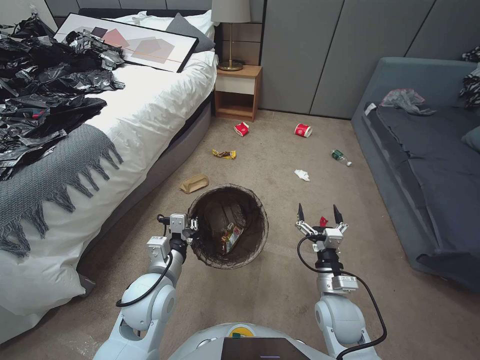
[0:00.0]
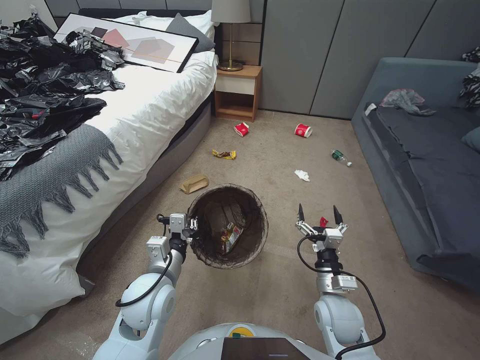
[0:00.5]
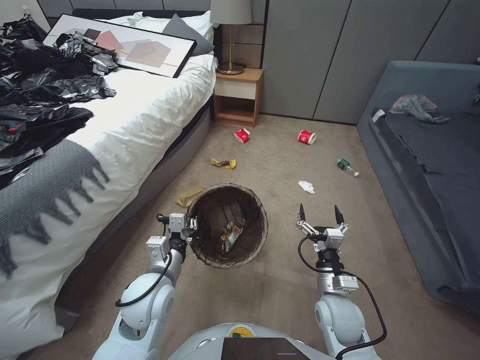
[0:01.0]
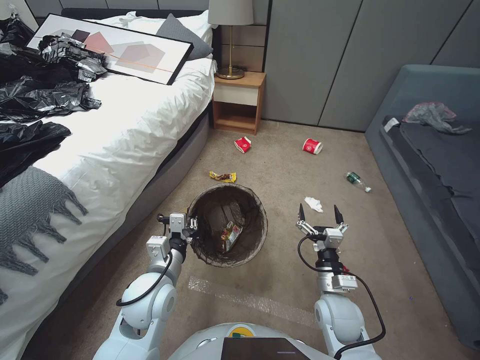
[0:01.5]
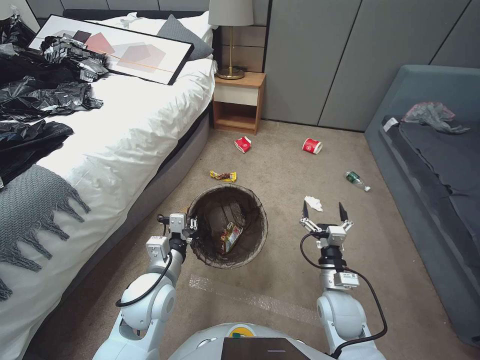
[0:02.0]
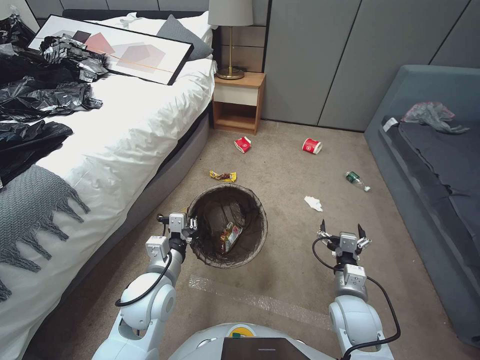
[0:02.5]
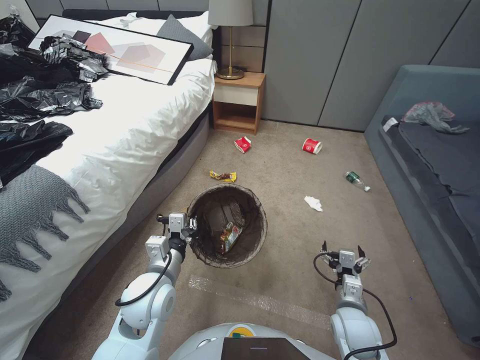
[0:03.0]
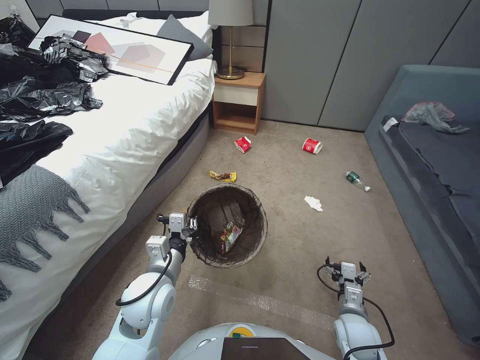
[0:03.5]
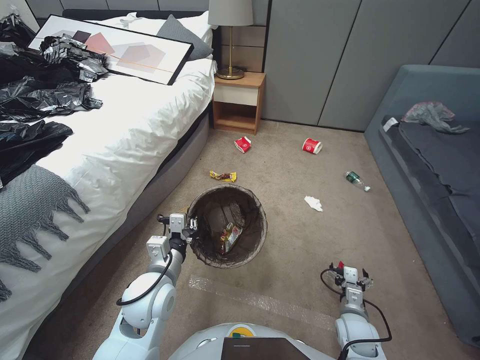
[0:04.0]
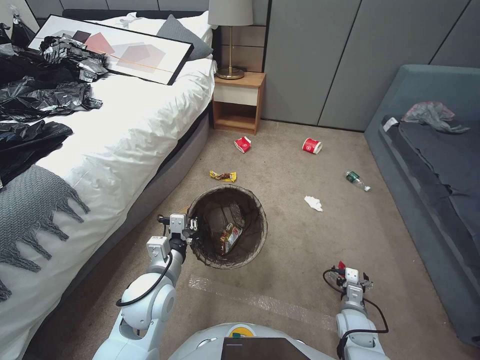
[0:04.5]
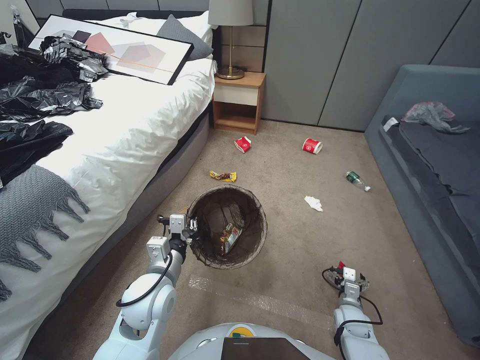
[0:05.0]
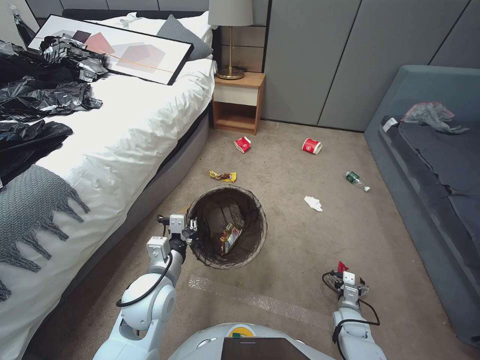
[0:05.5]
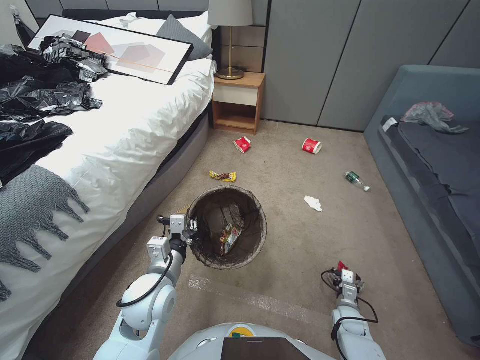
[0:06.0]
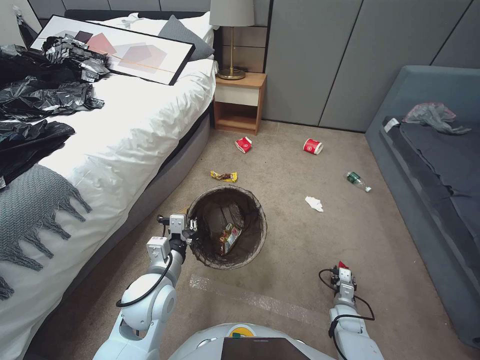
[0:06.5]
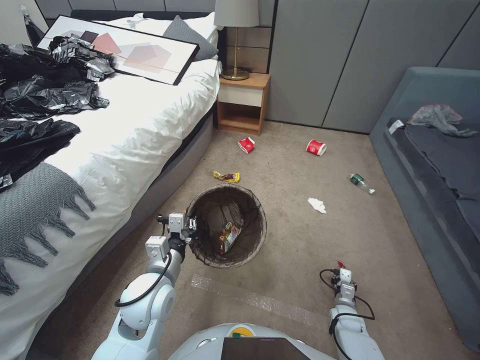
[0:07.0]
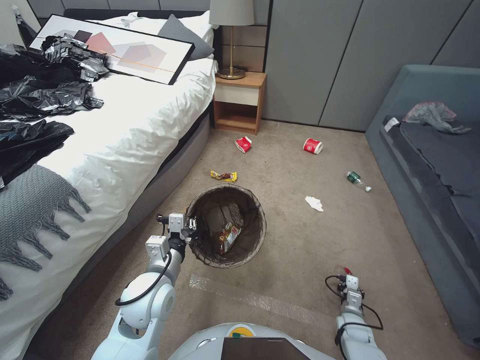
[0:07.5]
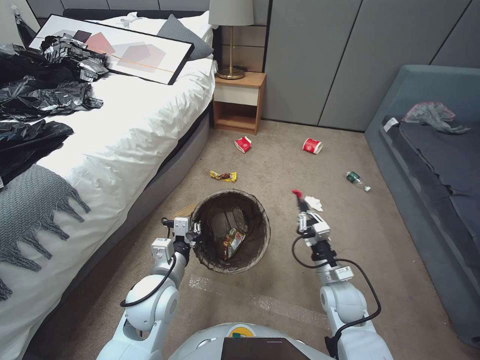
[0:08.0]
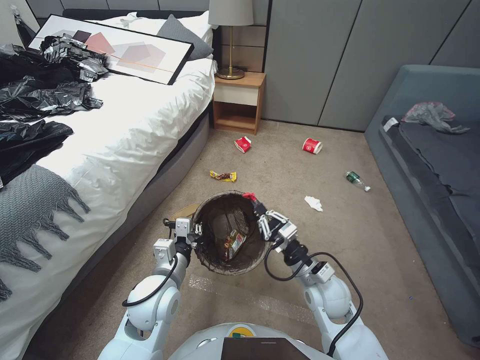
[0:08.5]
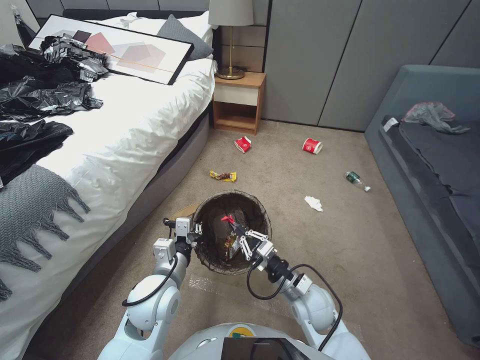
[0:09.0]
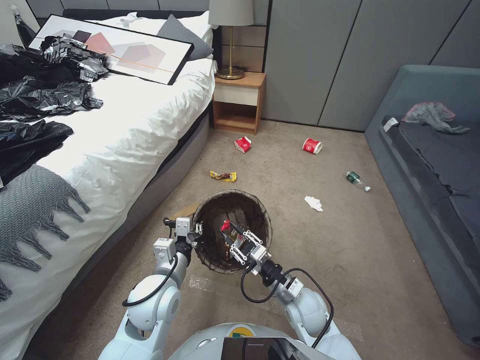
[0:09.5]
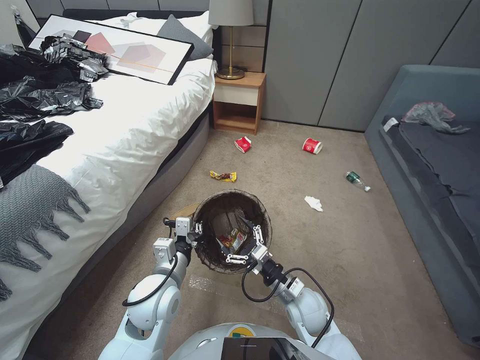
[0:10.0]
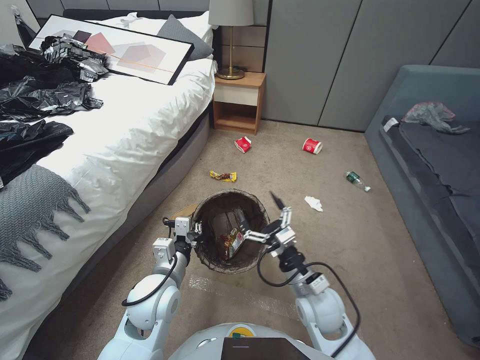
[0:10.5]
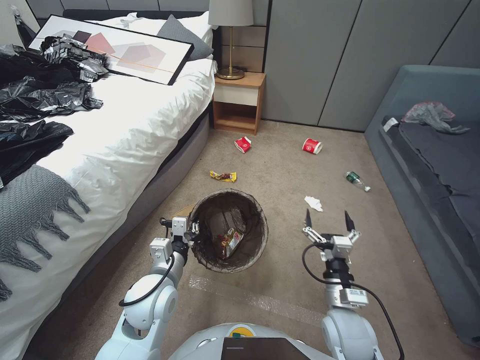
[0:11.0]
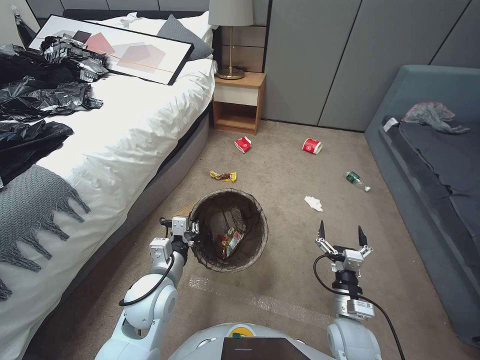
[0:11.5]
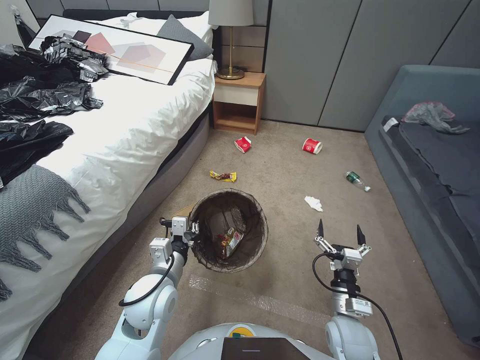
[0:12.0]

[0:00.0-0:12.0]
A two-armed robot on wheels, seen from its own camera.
Task of the whole recording: Pick up the trash bin, then pick up the garbage from the floor and place it into the trash bin.
0:02.0 to 0:04.0: The right gripper is displaced downward and to the right by about 15 cm.
0:04.0 to 0:06.0: The right gripper heads downward, covering about 10 cm.
0:06.0 to 0:08.0: The right gripper heads upward and to the left, covering roughly 20 cm, and closes.
0:08.0 to 0:10.0: The right gripper travels to the left by about 10 cm, and opens up.
0:10.0 to 0:12.0: The right gripper travels to the right and backward by about 10 cm.

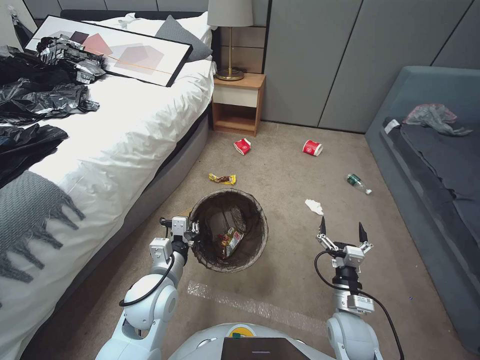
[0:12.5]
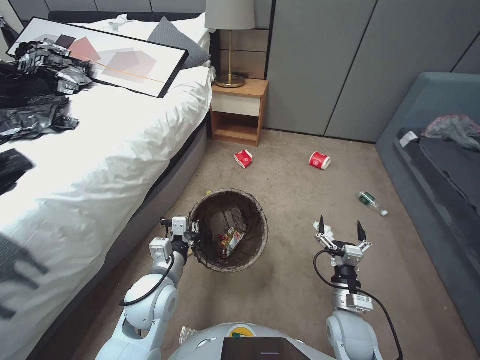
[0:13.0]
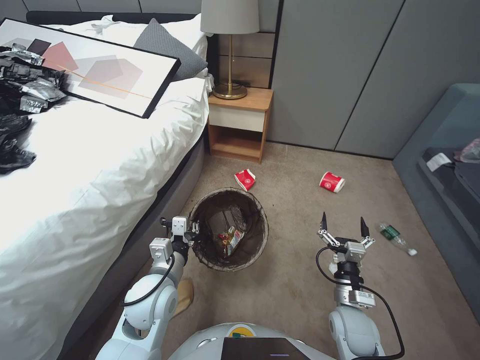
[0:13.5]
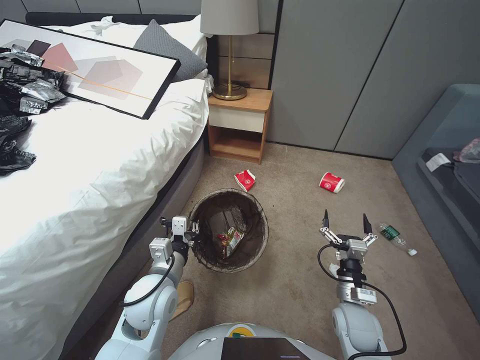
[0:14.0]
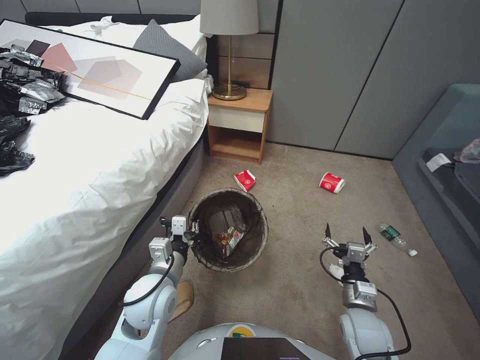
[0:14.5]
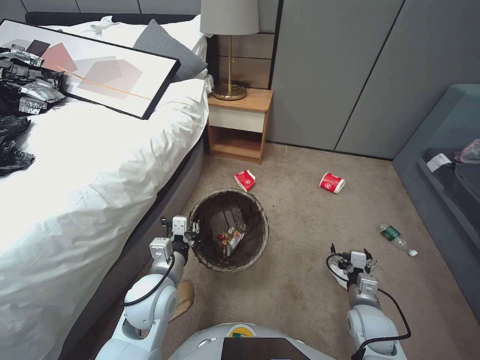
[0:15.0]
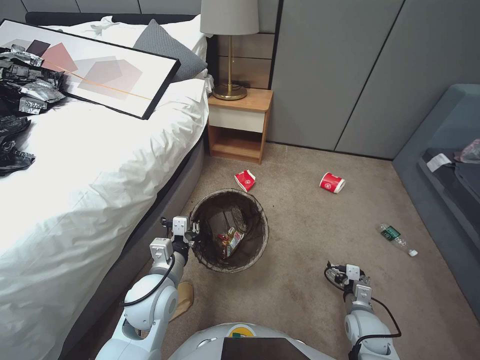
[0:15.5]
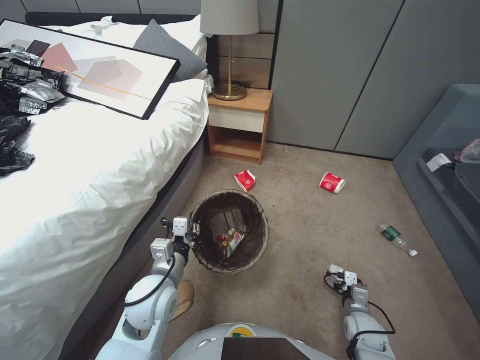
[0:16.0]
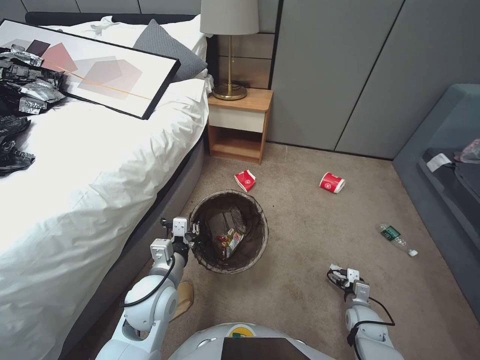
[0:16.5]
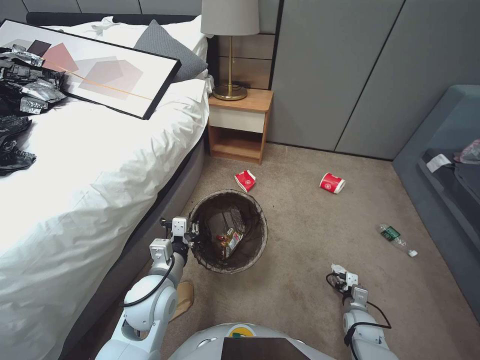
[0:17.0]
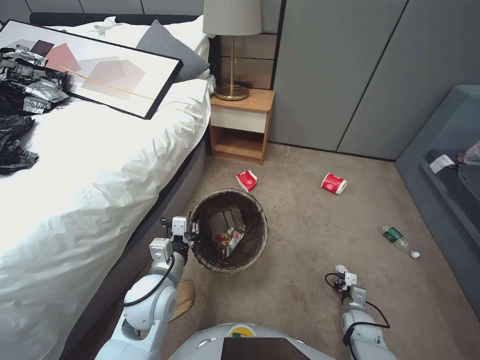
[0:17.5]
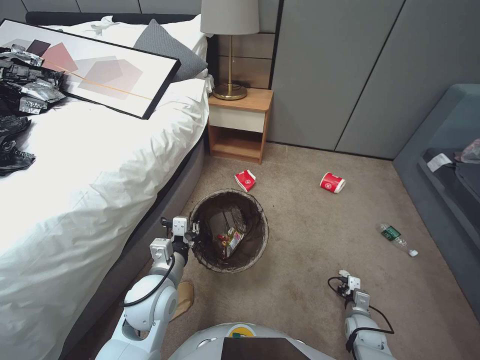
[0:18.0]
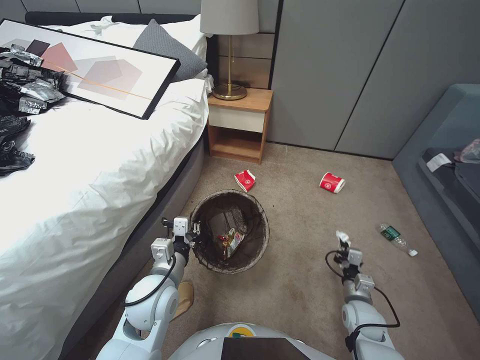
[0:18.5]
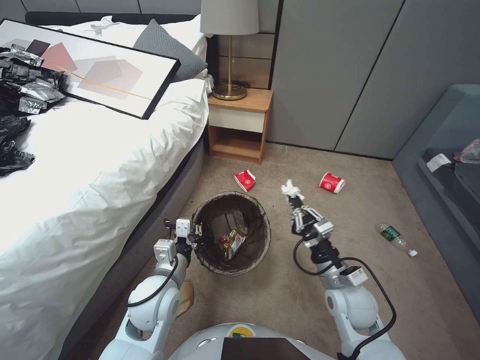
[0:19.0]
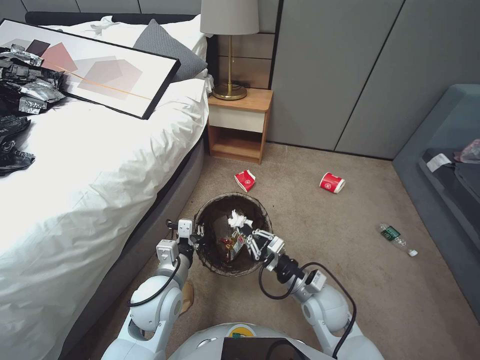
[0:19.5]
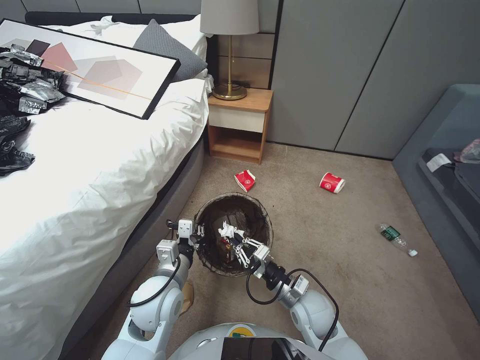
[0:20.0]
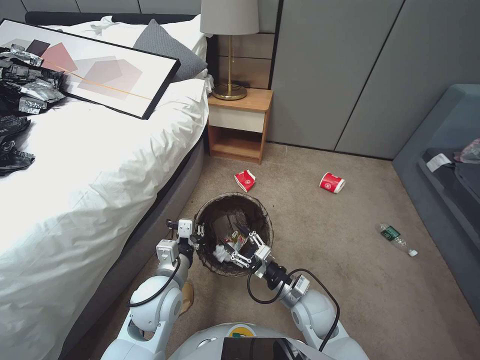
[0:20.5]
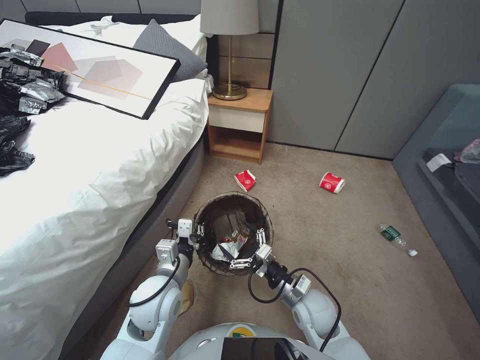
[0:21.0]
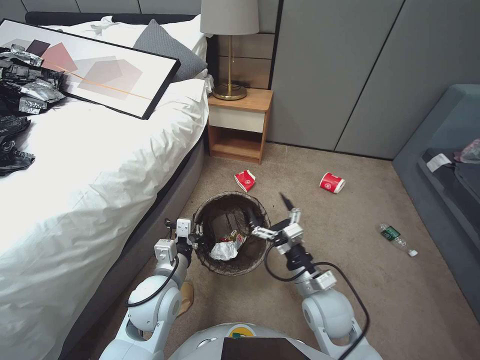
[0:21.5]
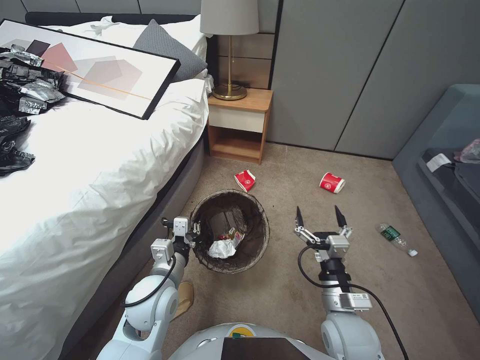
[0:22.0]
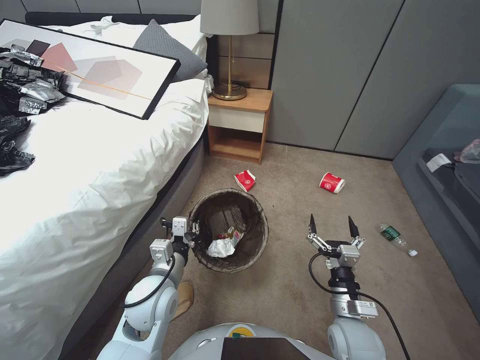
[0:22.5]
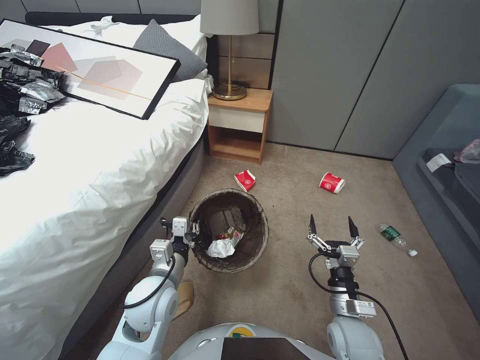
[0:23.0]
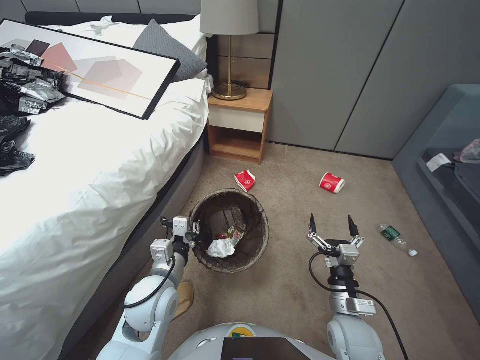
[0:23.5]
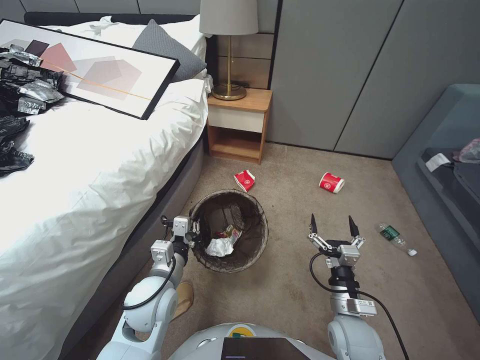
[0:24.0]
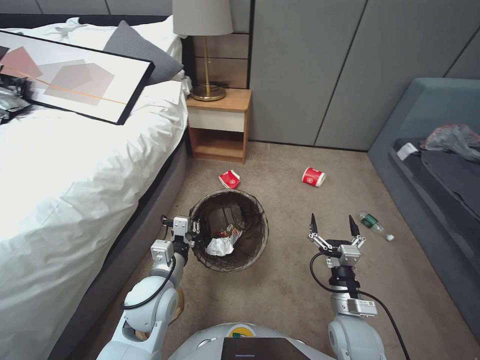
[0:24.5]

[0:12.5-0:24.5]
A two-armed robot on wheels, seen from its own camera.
Task of the whole recording: Pick up the trash bin, then pick up the garbage from the floor and place it into the trash bin.
0:14.5 to 0:16.5: The right gripper goes roughly 15 cm downward and to the right.
0:16.5 to 0:18.5: The right gripper closes up.
0:18.5 to 0:20.5: The right gripper moves to the left and upward, roughly 25 cm, and opens up.
0:20.5 to 0:22.5: The right gripper is displaced to the right and backward by approximately 10 cm, and opens up.

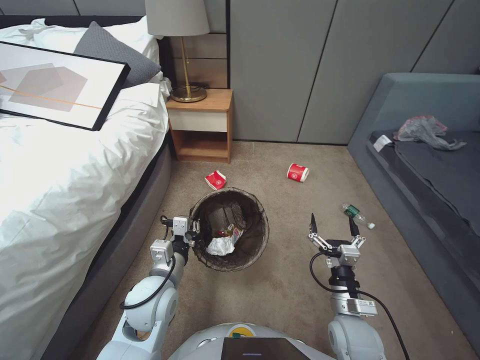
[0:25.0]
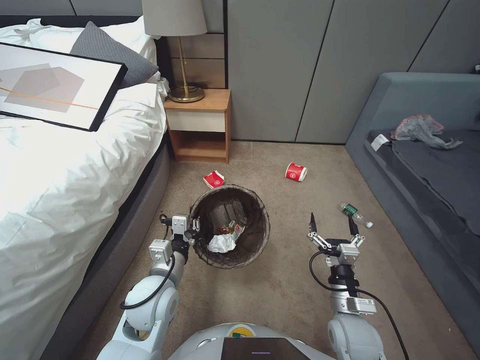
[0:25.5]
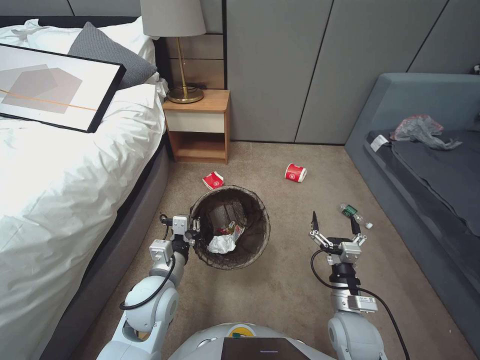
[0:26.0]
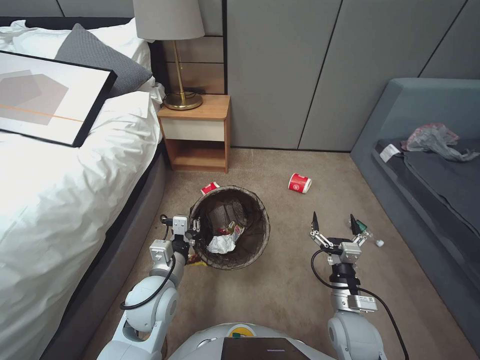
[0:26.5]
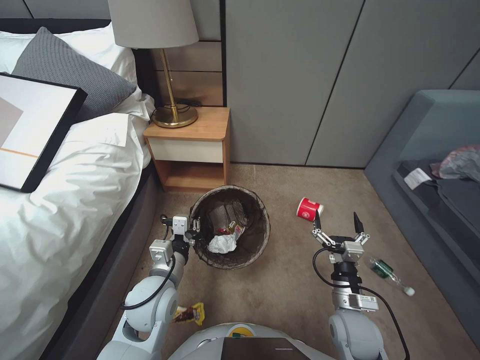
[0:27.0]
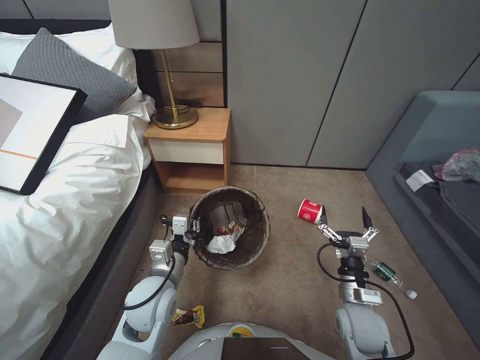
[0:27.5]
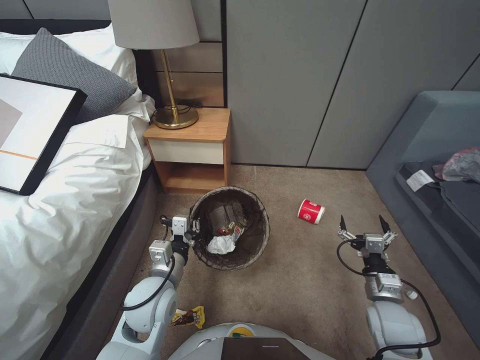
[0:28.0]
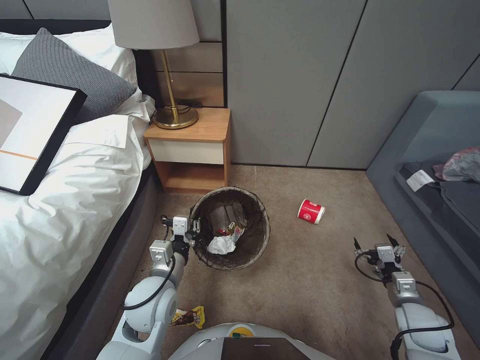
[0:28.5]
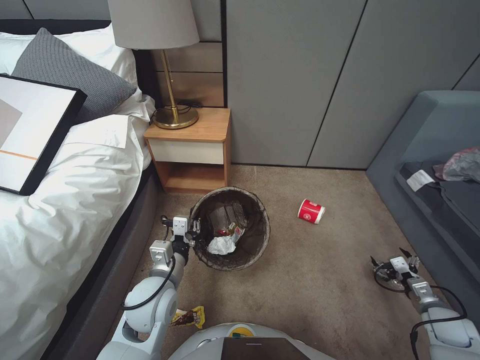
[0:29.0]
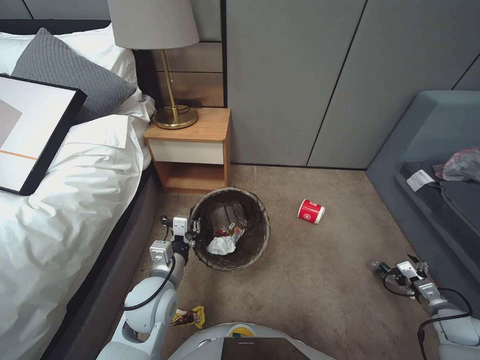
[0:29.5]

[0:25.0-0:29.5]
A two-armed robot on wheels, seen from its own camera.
Task of the whole recording: Pick up the trash bin, then pick up the garbage from the floor and place it into the trash bin.
0:27.0 to 0:29.5: The right gripper heads to the right, covering roughly 30 cm.
